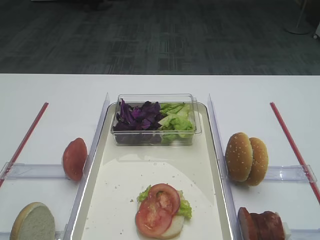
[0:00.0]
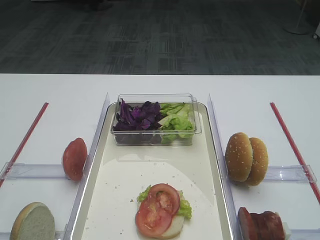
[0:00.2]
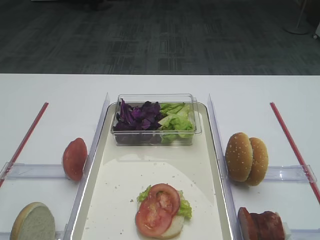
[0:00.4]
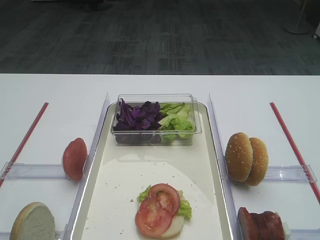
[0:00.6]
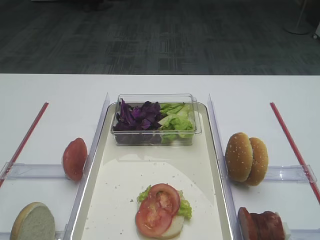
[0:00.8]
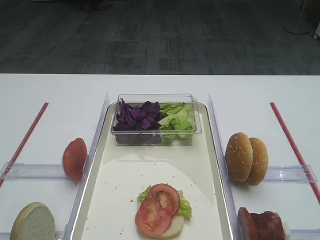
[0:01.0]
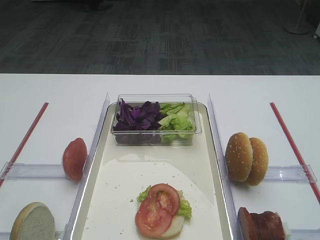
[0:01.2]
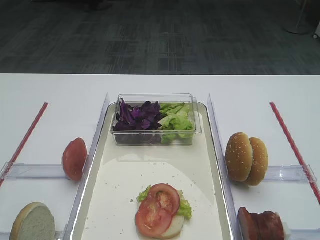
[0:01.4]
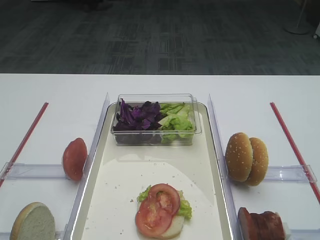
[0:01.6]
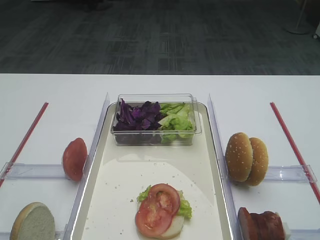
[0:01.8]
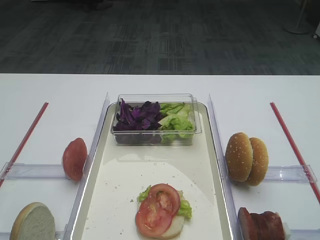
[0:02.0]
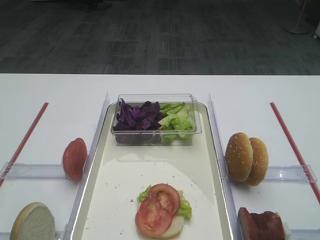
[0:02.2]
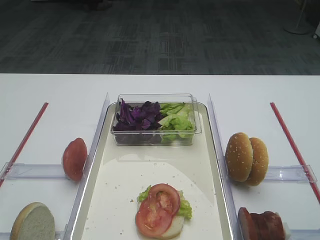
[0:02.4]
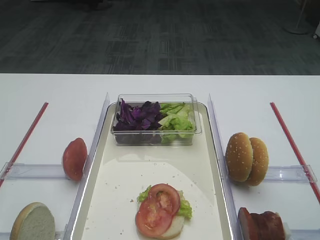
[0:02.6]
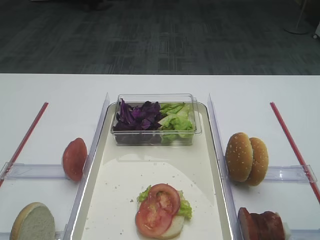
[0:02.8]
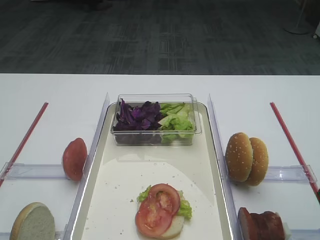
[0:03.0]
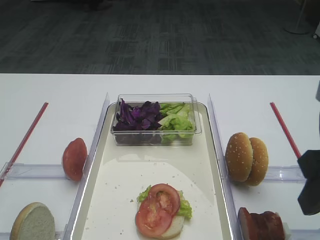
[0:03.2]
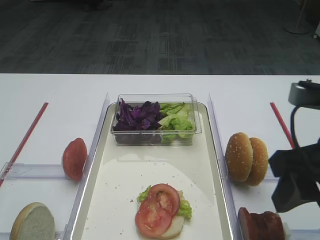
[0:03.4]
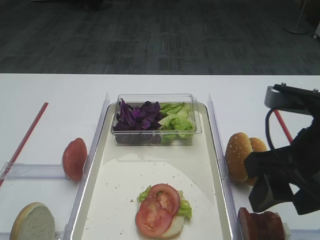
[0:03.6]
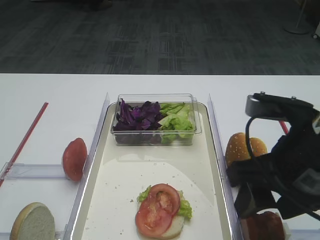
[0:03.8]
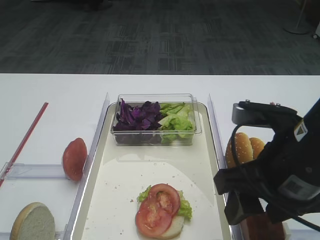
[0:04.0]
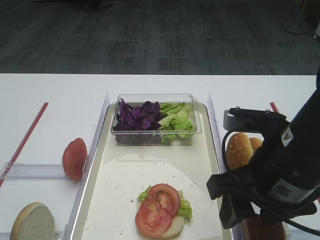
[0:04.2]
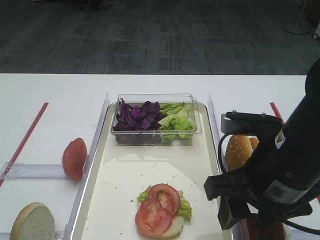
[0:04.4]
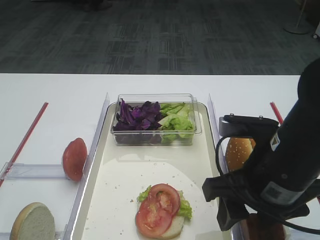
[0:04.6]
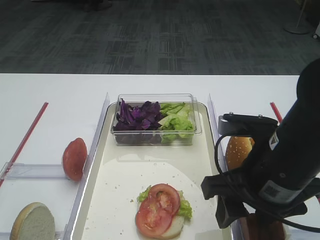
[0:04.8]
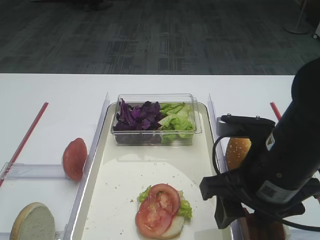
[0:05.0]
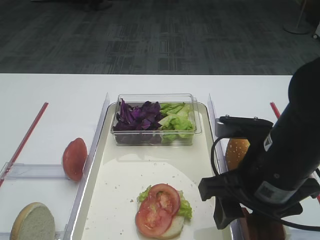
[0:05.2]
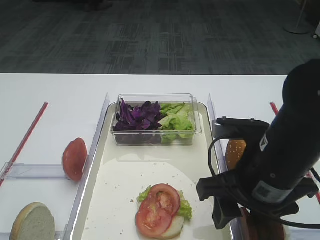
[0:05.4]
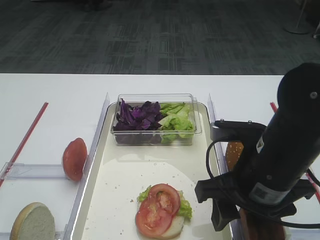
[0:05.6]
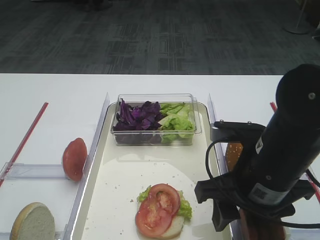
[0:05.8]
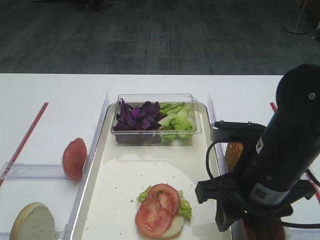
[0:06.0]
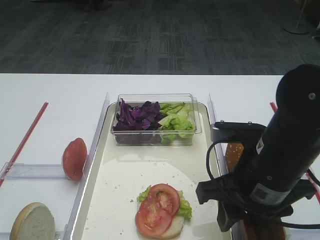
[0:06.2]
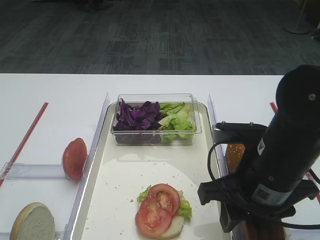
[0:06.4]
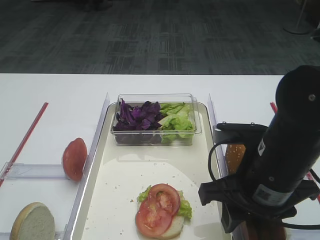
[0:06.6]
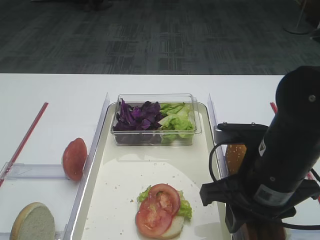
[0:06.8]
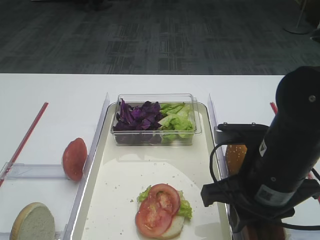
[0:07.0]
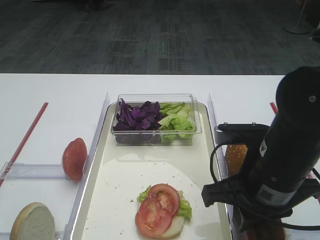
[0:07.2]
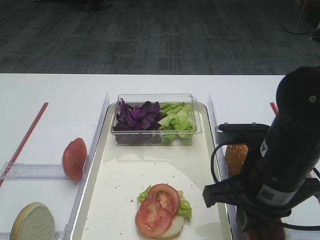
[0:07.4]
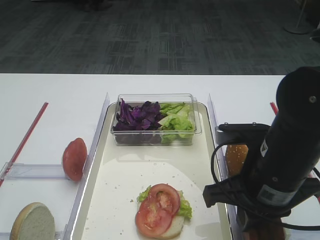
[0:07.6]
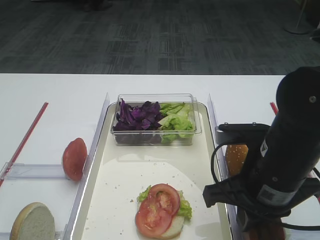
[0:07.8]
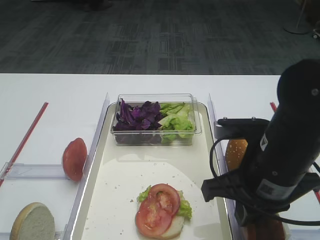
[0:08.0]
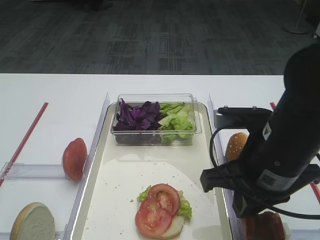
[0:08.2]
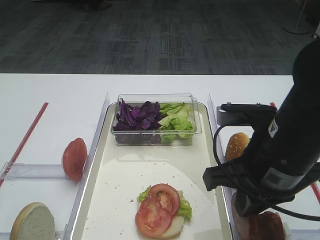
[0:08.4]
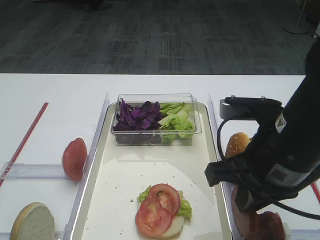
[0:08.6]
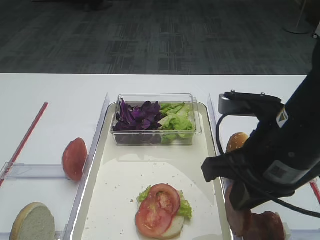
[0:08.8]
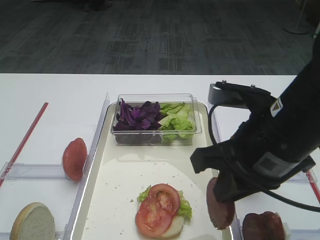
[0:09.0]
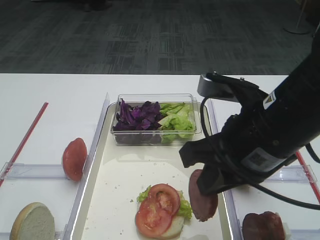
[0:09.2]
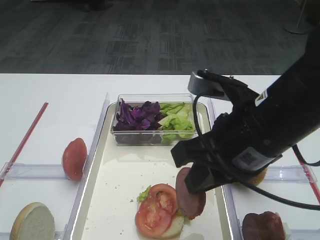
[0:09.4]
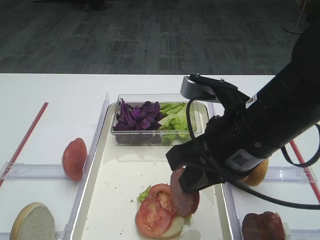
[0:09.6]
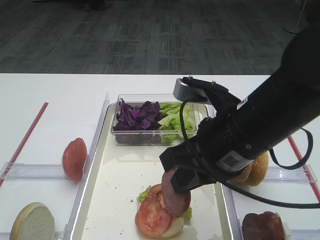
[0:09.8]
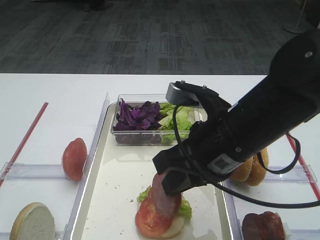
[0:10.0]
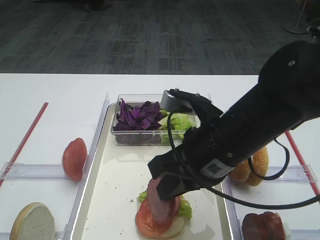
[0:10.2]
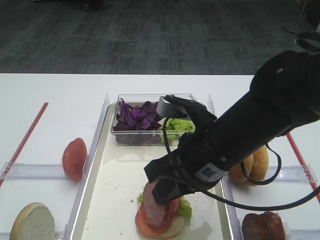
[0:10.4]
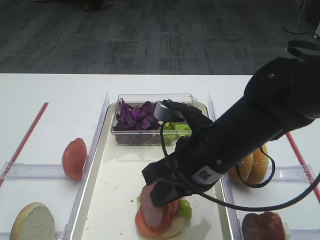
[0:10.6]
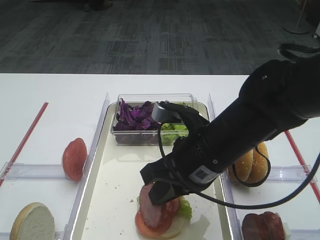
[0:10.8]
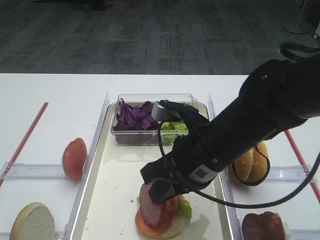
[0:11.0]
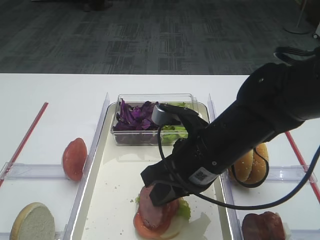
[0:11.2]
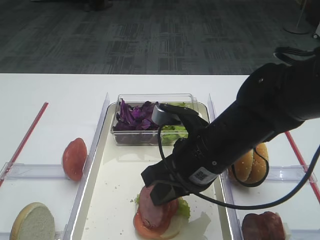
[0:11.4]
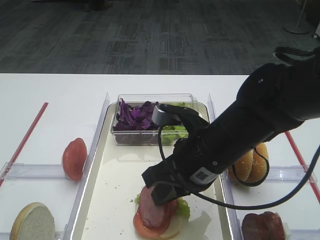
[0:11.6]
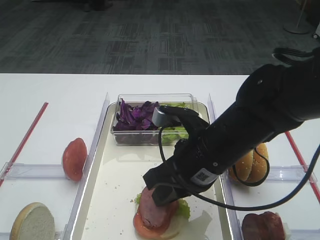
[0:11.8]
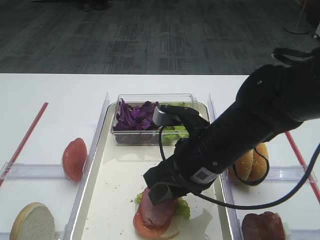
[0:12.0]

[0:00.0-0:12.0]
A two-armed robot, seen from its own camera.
Step, 0:00.0 to 0:08.6: Pick up the cutlet with the right gripper.
0:03.0 to 0:04.4: The right gripper travels to the left and downward by about 10 cm.
0:04.4 to 0:06.0: There are only small adjustments of the grippers.
0:06.0 to 0:07.6: The right gripper closes up.
0:07.6 to 0:09.0: The right gripper heads upward, covering roughly 5 cm.
0:09.0 to 0:10.4: The right gripper shifts about 5 cm to the left.
0:10.4 to 0:12.0: The right gripper opens.

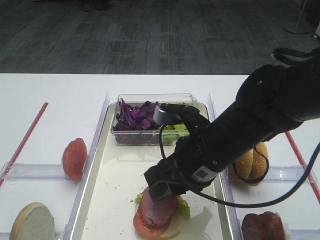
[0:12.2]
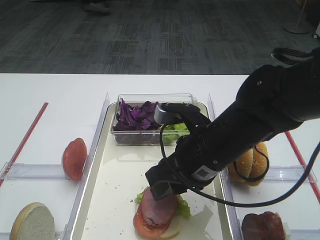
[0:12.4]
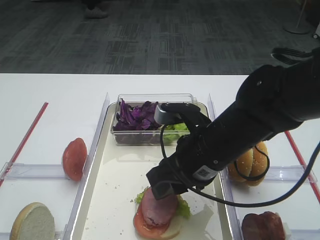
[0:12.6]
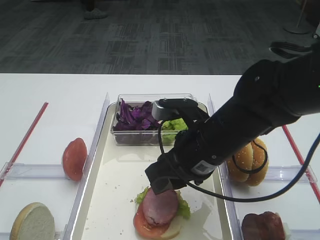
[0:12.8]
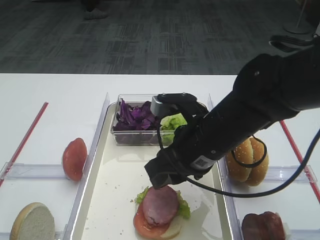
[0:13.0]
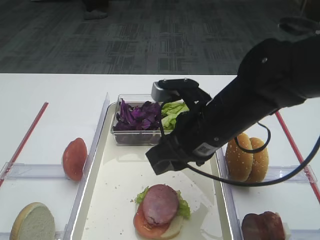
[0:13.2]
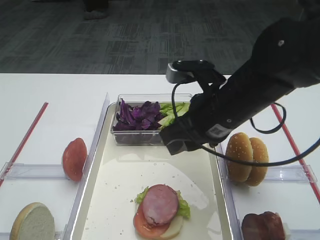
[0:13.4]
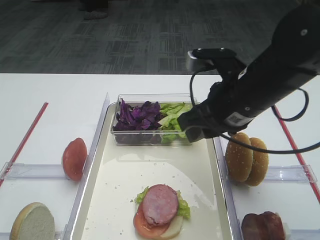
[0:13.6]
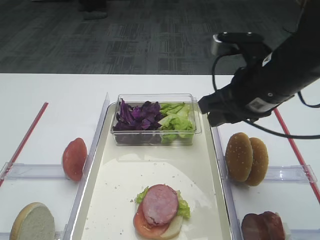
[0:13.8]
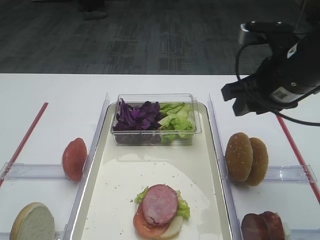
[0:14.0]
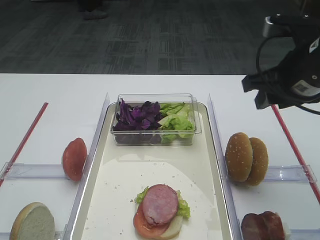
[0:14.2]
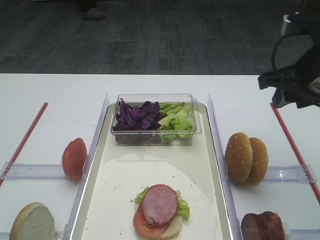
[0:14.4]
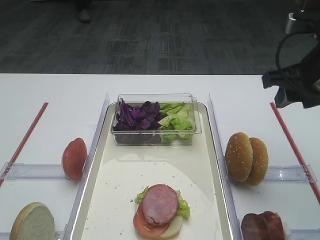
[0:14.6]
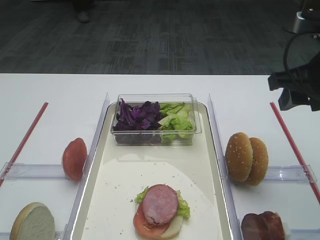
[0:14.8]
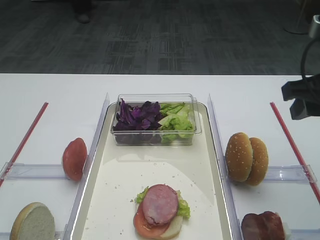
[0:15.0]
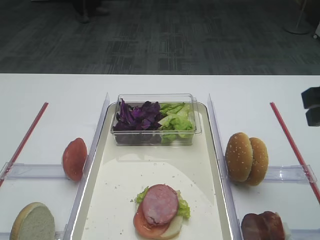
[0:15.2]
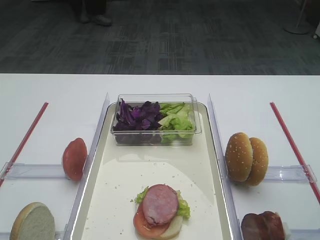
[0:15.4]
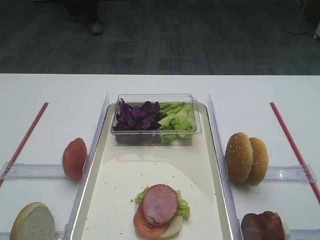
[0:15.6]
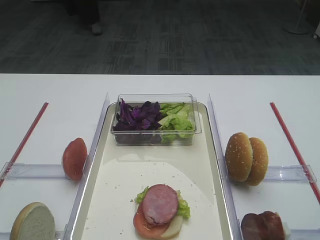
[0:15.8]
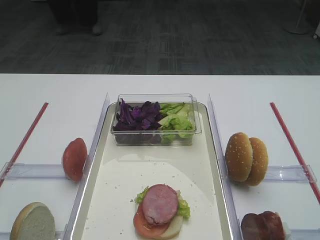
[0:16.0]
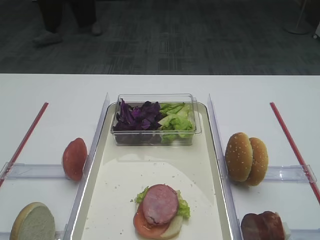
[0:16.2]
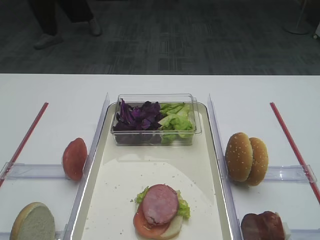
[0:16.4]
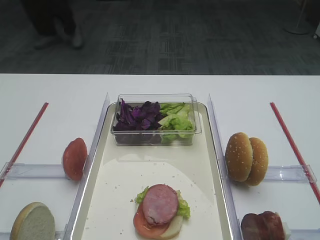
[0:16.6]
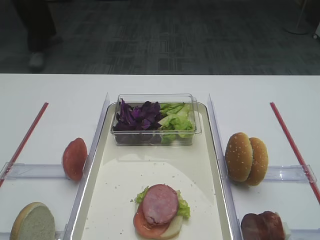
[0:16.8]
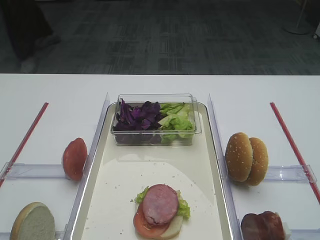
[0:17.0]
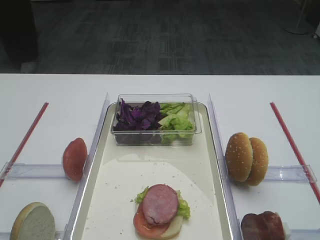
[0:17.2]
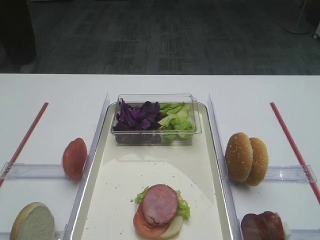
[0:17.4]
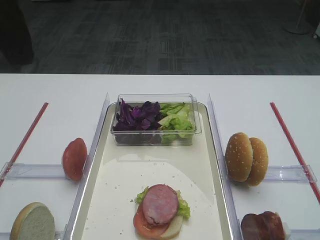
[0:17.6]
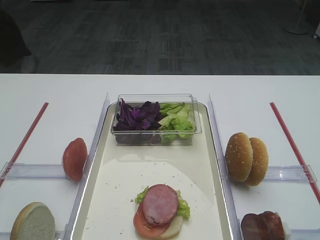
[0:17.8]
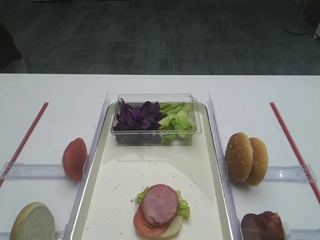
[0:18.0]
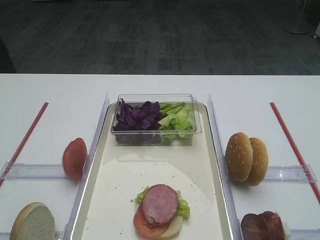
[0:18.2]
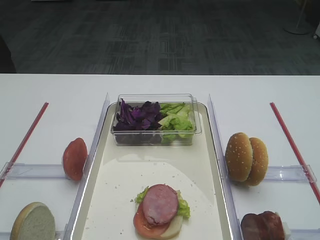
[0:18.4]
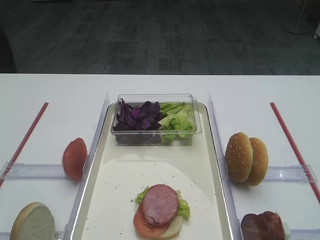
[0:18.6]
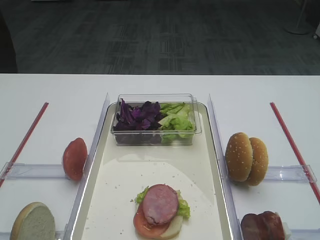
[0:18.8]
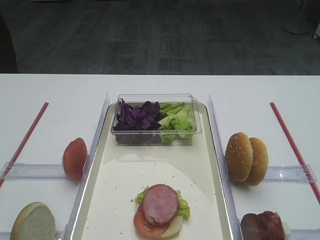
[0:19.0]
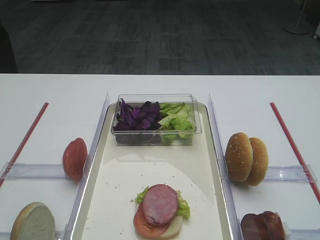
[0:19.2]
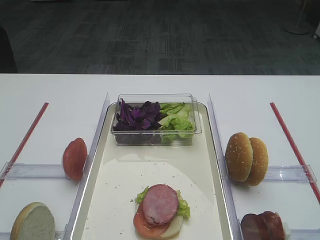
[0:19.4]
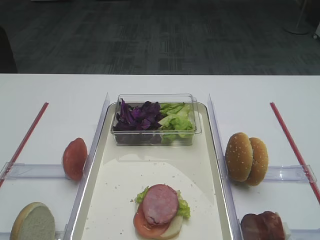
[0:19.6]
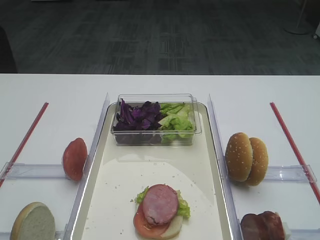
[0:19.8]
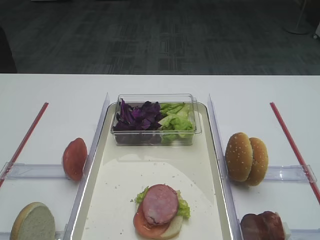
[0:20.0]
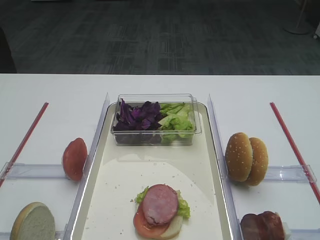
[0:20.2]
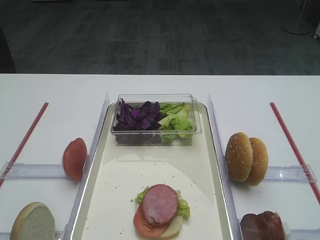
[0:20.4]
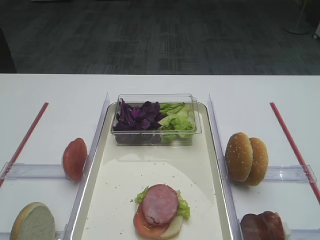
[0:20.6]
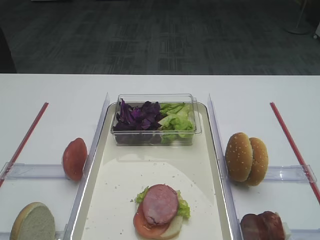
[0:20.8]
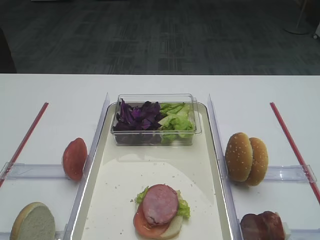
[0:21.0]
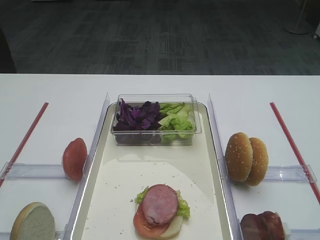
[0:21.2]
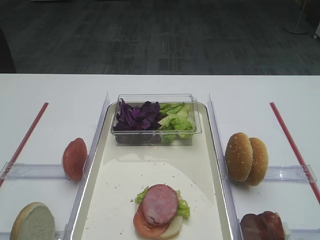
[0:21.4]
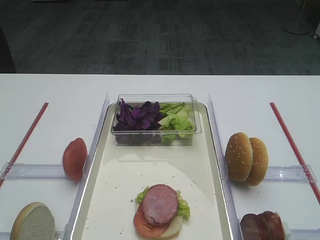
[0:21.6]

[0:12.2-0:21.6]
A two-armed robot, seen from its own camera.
0:12.2 to 0:13.8: The right gripper shifts about 10 cm upward and to the right.
0:13.8 to 0:15.4: The right gripper moves backward, to the right and upward, roughly 15 cm.
0:17.0 to 0:18.4: The grippers move only a little.
0:20.0 to 0:21.6: Both grippers stay put.

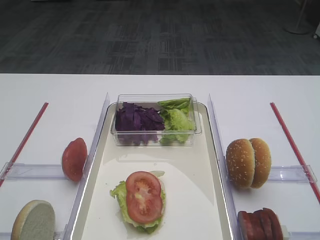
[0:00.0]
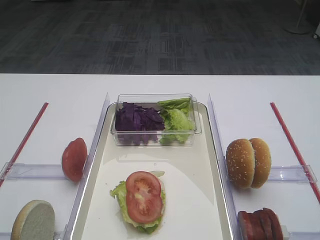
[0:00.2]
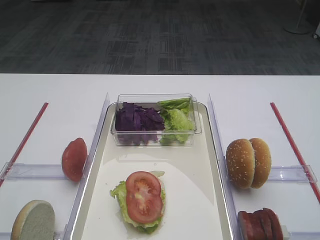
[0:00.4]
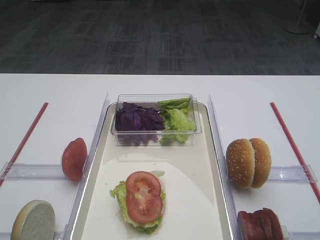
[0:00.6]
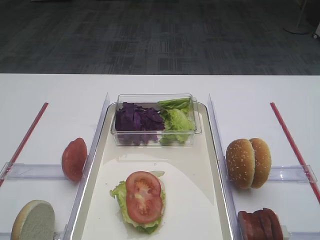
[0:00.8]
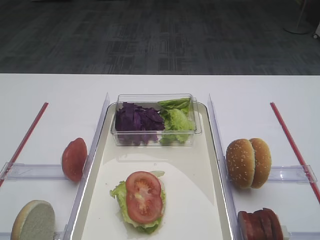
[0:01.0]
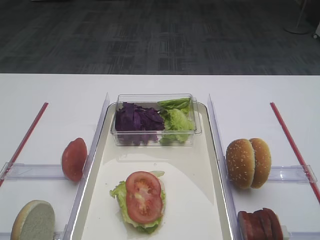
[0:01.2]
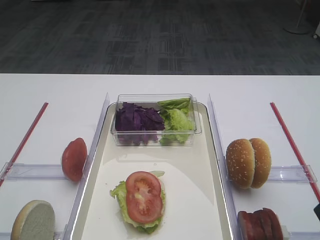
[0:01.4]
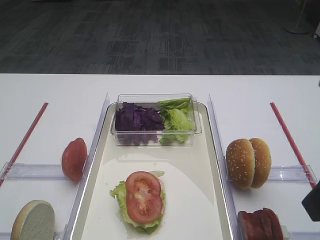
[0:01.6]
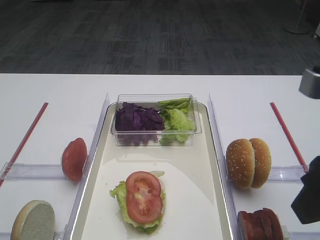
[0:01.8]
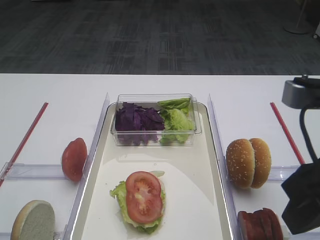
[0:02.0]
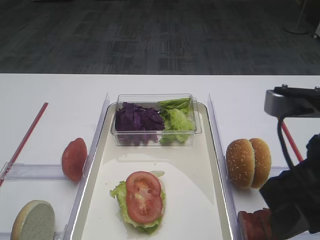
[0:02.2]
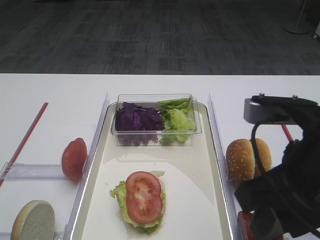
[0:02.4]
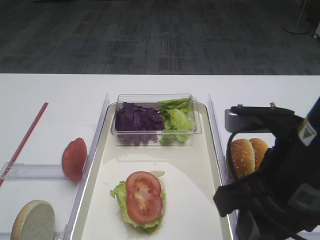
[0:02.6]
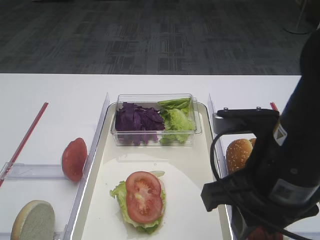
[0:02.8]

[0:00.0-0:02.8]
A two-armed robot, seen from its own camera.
0:01.4 to 0:02.8: The right gripper is displaced to the left, downward and forward by about 10 cm.
